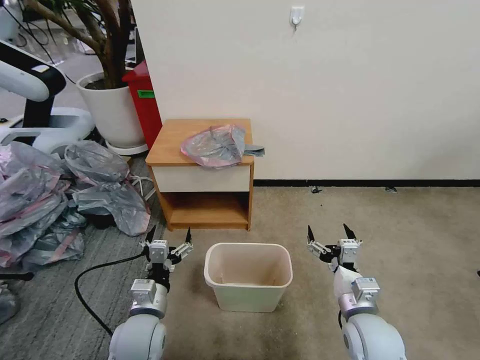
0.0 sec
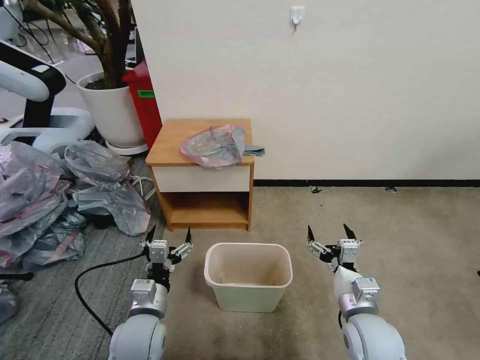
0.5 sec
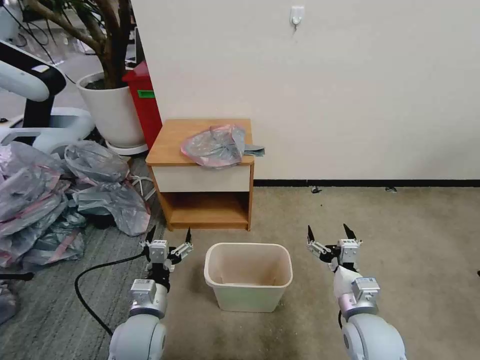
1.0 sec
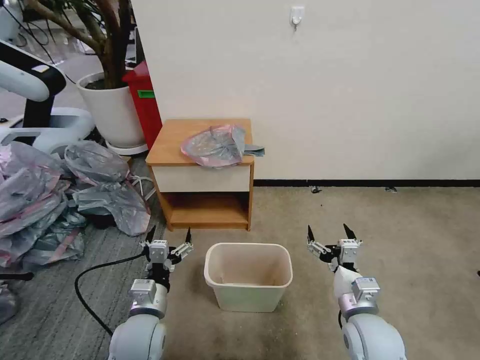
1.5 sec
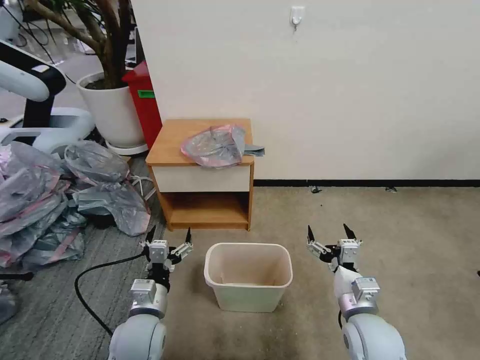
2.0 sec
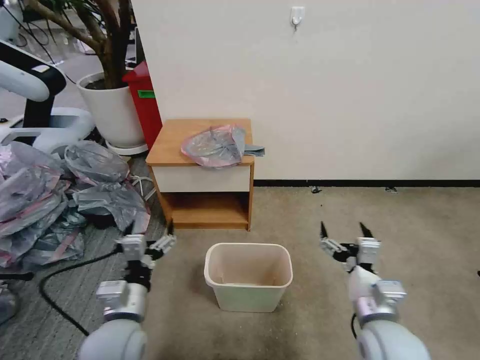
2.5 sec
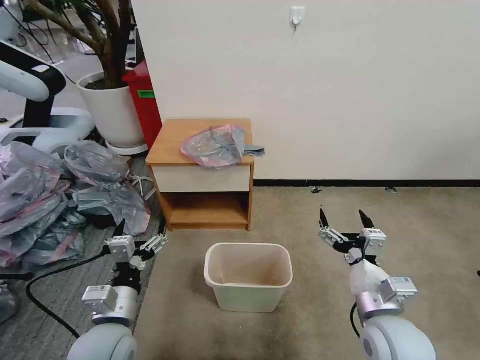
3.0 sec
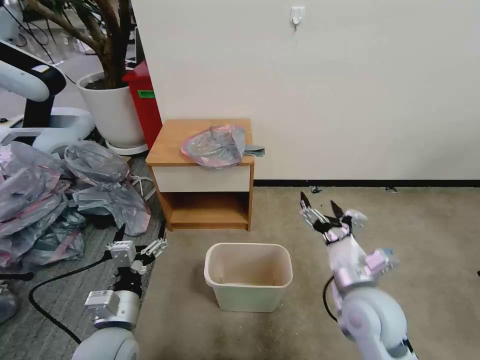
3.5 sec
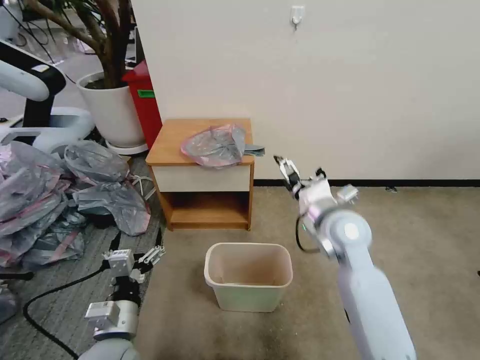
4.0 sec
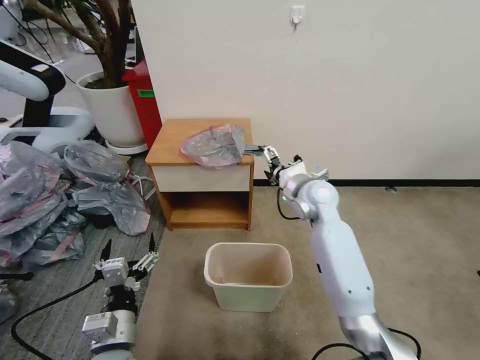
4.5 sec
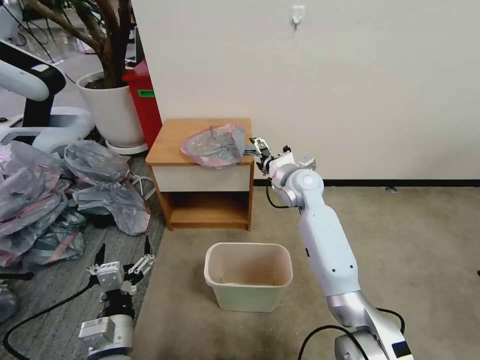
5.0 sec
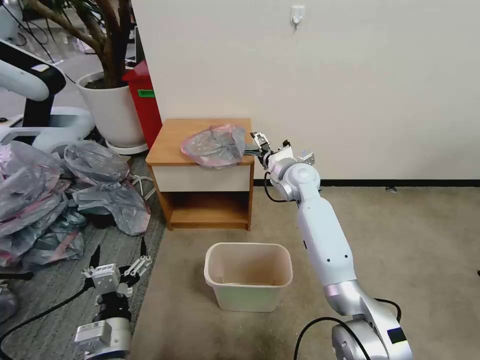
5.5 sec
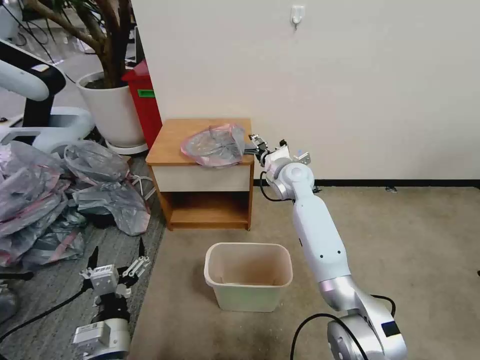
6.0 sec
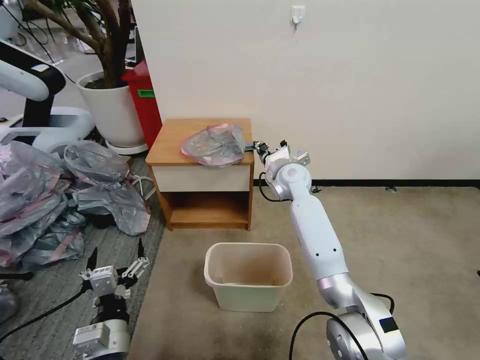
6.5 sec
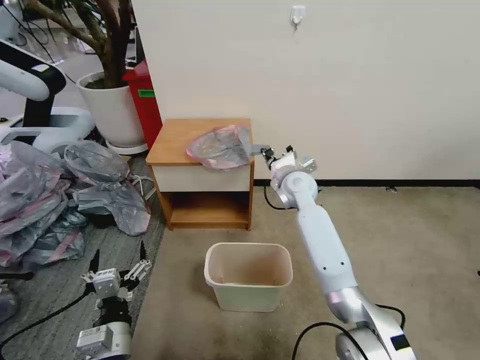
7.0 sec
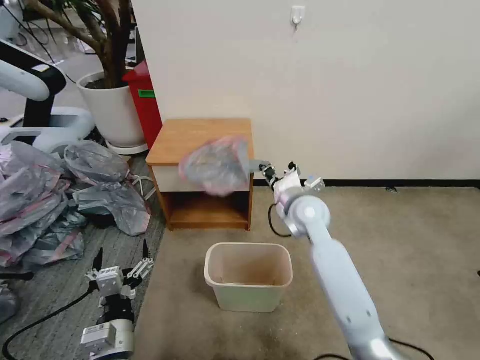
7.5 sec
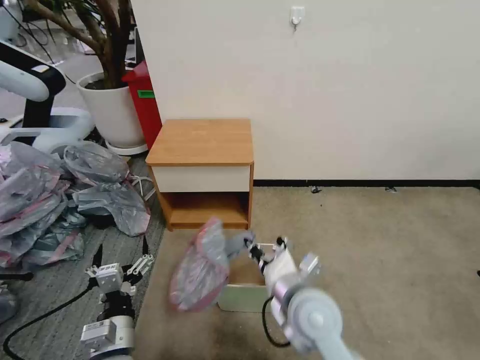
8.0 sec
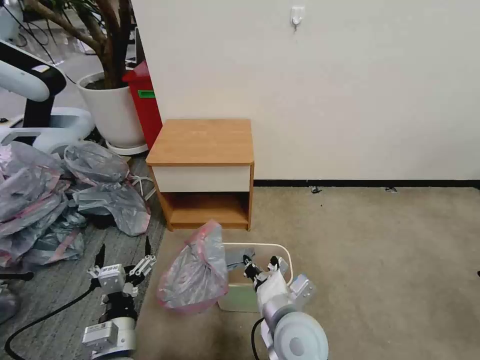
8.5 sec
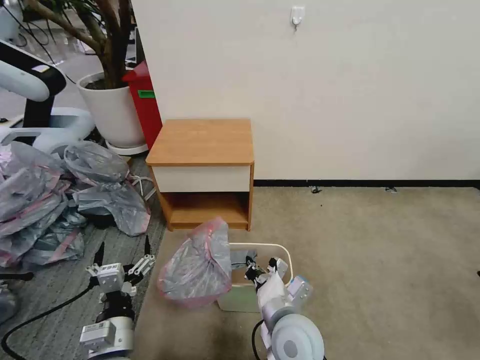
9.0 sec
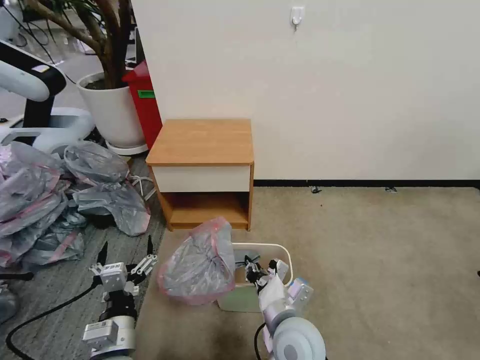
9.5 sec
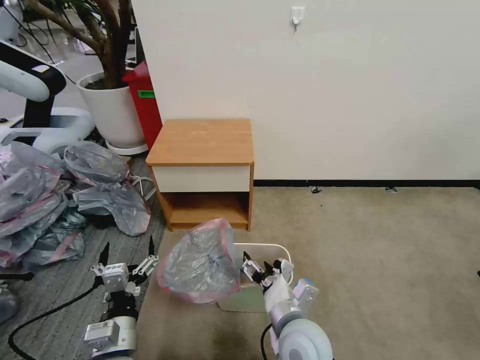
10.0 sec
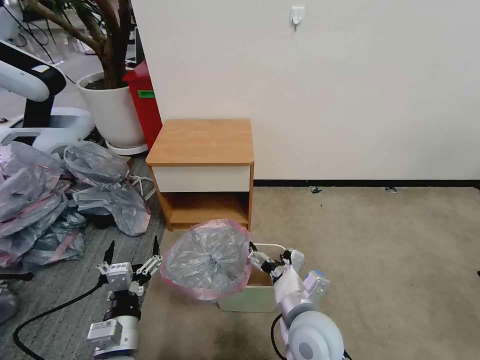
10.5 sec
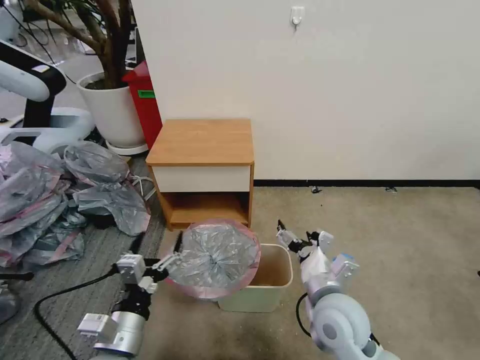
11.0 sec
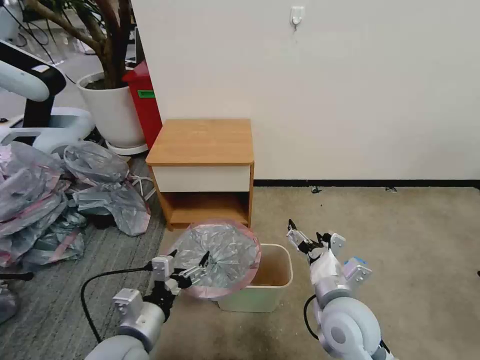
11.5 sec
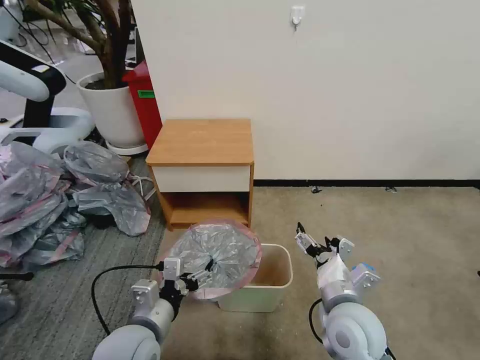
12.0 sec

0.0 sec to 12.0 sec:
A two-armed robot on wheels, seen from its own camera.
Task of the whole recording: Pick up the garbage bag from the table and place it over the trash can.
2.0 sec to 4.0 sec: The left gripper moves approximately 5 cm, while the right gripper travels forward and upward by roughly 20 cm.
4.0 sec to 6.0 sec: The right gripper travels forward by about 15 cm.
6.0 sec to 8.0 sec: The right gripper heads backward, covering some 30 cm, and closes up.
8.0 sec to 10.0 sec: The right gripper changes place by some 5 cm, and opens up.
10.0 sec to 12.0 sec: The right gripper moves to the right, about 10 cm, while the left gripper shifts by about 5 cm.

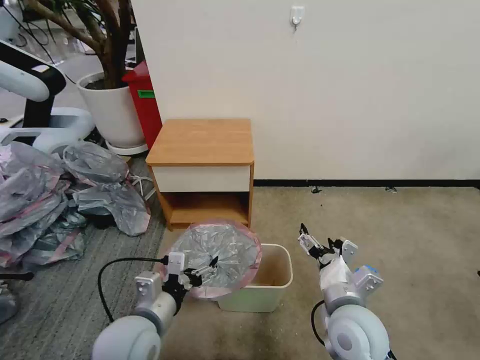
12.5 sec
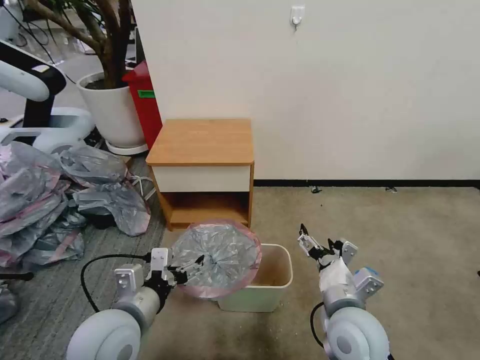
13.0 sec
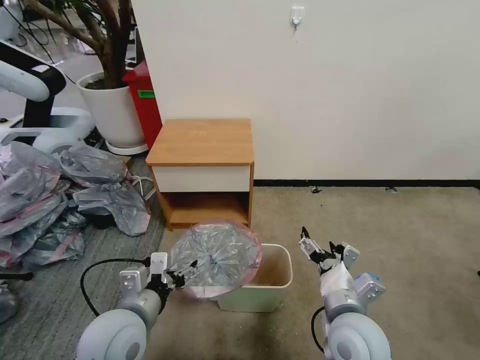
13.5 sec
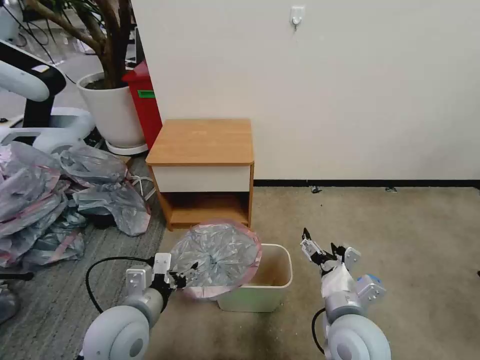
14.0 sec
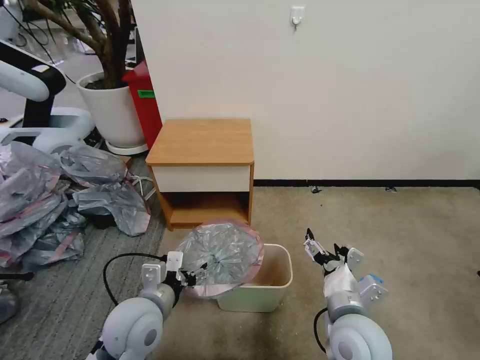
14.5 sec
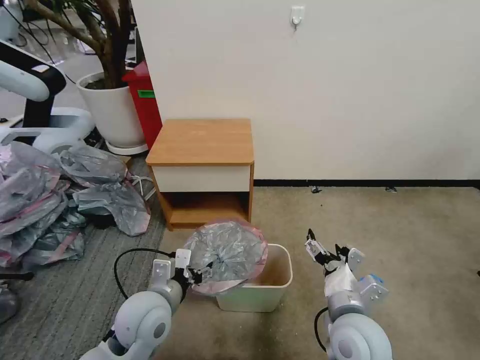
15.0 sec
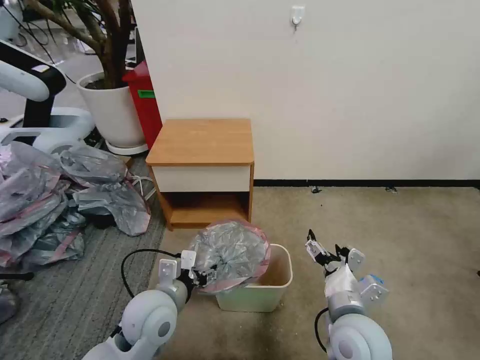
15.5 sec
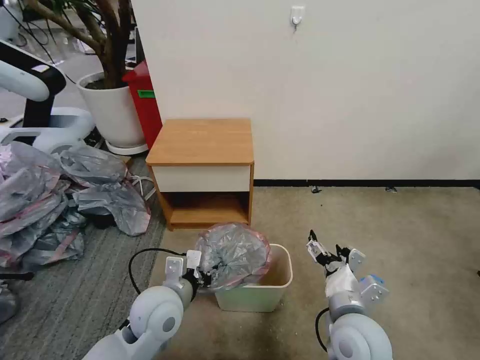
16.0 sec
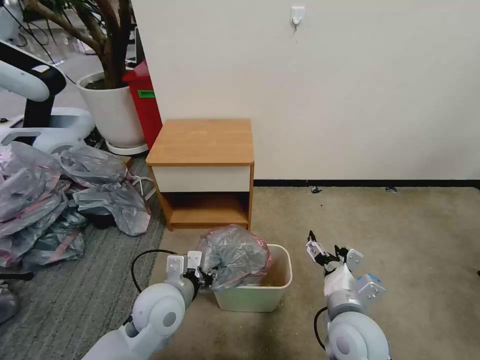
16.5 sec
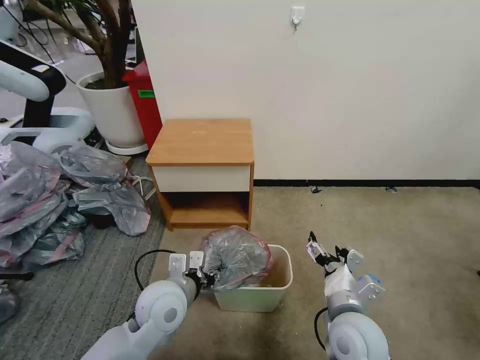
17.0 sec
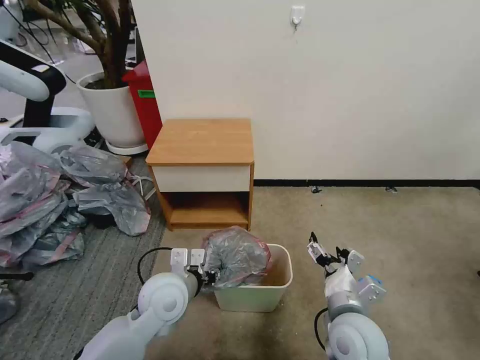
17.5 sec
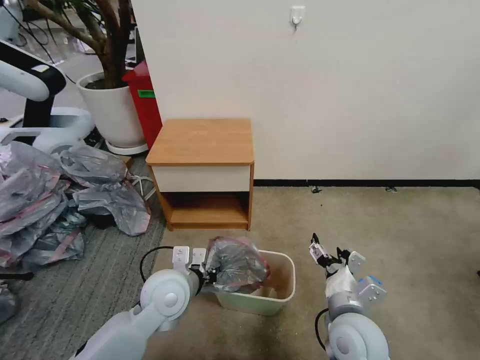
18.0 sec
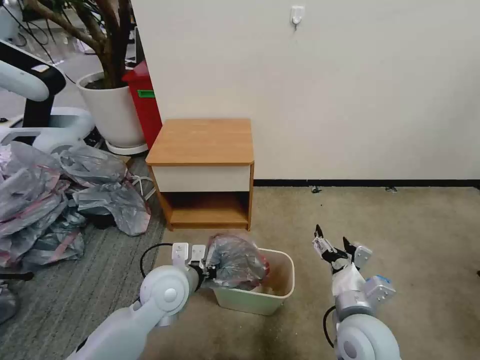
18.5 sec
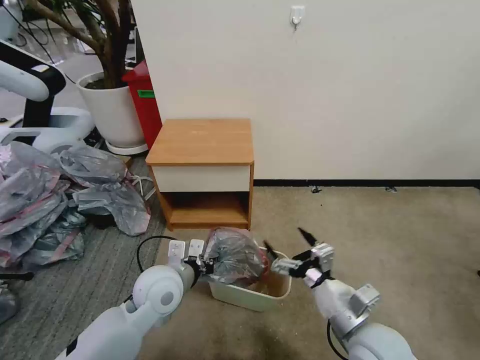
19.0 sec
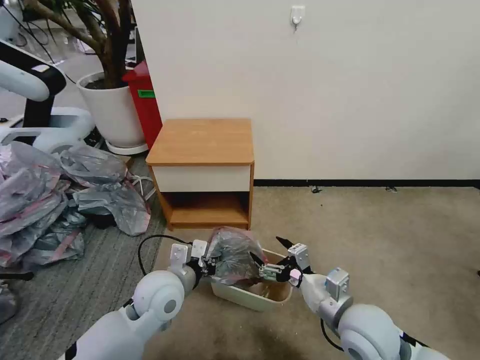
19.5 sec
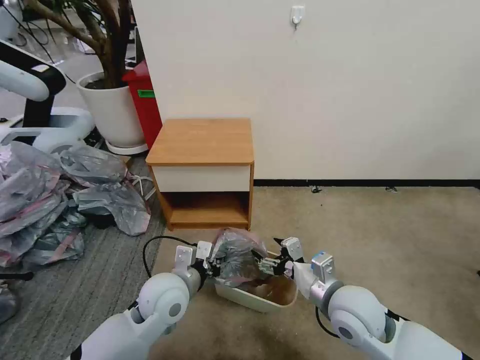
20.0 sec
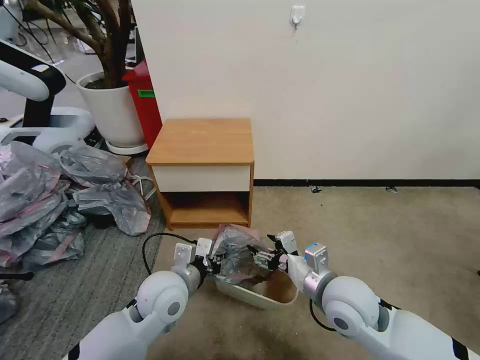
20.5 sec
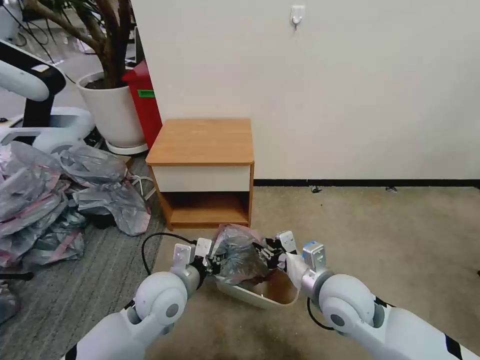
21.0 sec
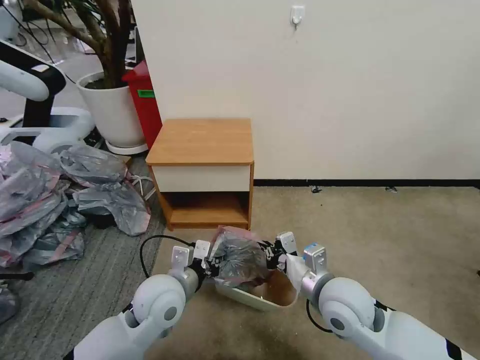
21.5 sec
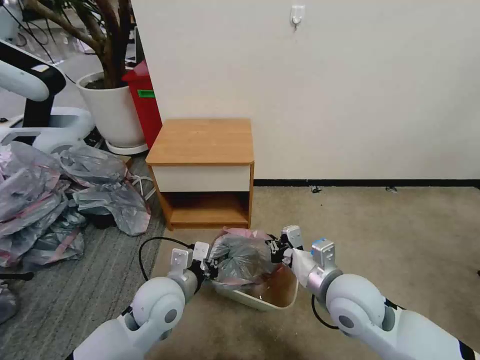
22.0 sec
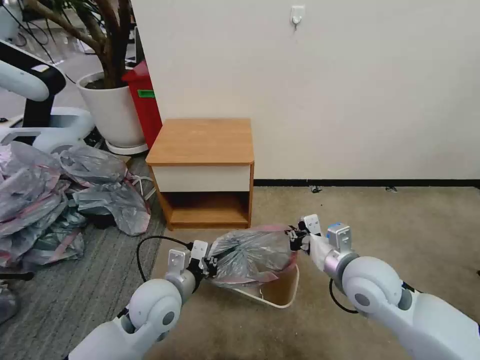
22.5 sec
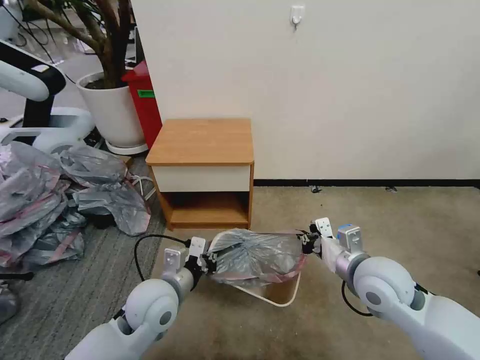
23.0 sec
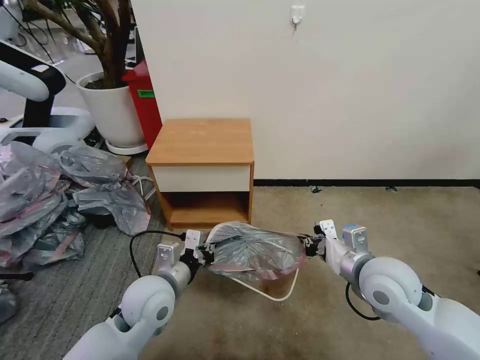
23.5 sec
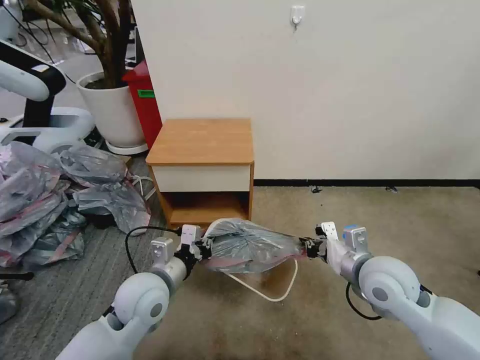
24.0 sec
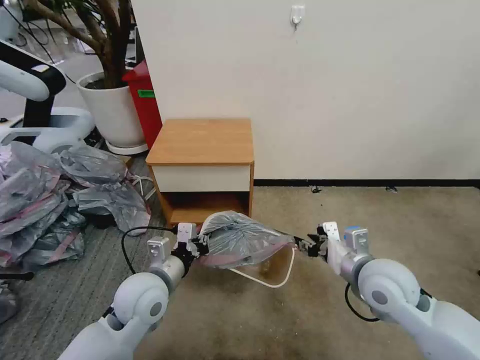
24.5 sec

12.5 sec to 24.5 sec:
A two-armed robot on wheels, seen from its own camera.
Task of the whole recording: Pick up the garbage bag from the table and place it over the trash can.
12.5 sec to 14.5 sec: There are only small adjustments of the grippers.
14.5 sec to 16.5 sec: There are only small adjustments of the grippers.
16.5 sec to 18.5 sec: The left gripper closes.
18.5 sec to 20.5 sec: The right gripper shifts roughly 5 cm forward.
20.5 sec to 22.5 sec: The right gripper shifts by approximately 5 cm, and closes.
22.5 sec to 24.5 sec: The right gripper opens.

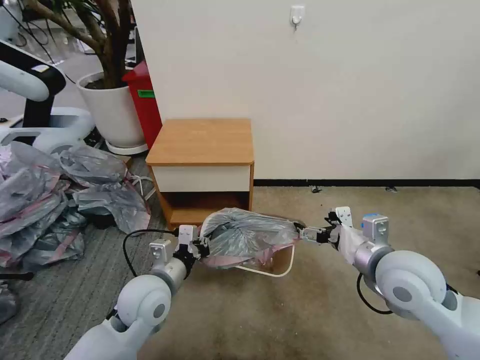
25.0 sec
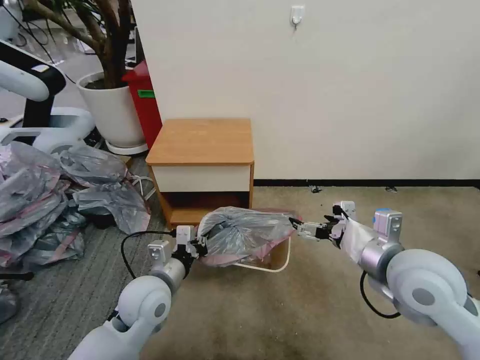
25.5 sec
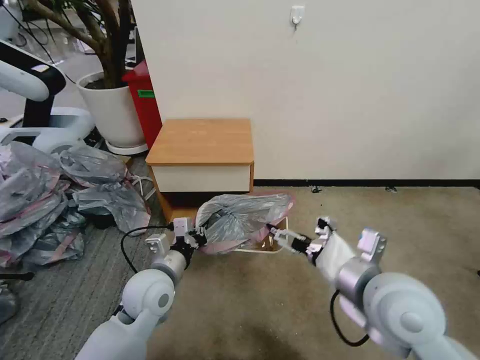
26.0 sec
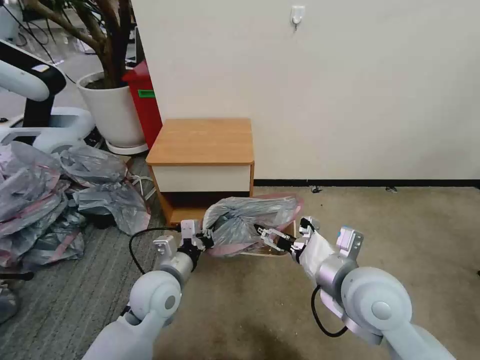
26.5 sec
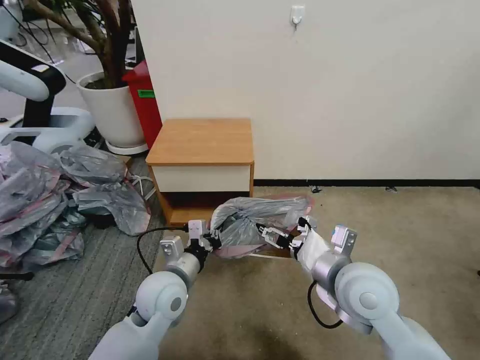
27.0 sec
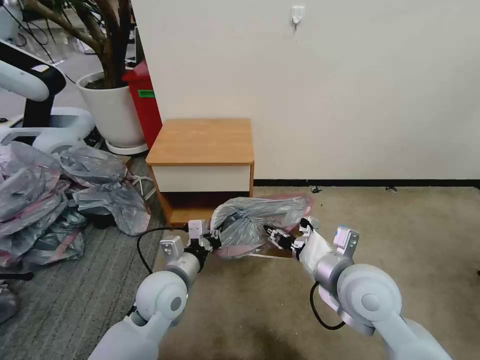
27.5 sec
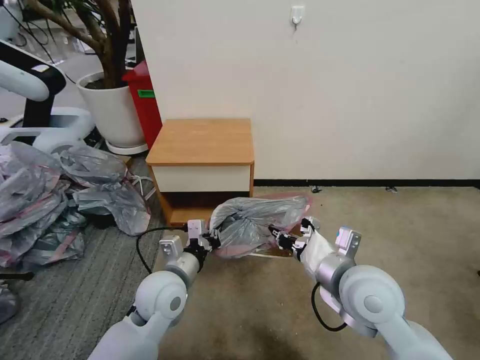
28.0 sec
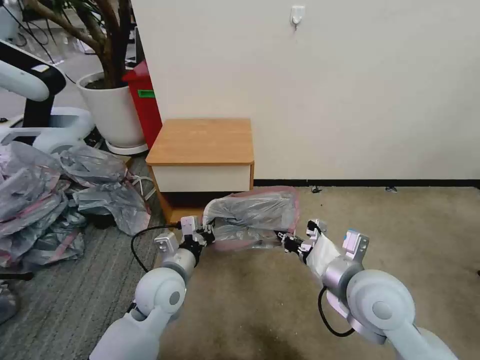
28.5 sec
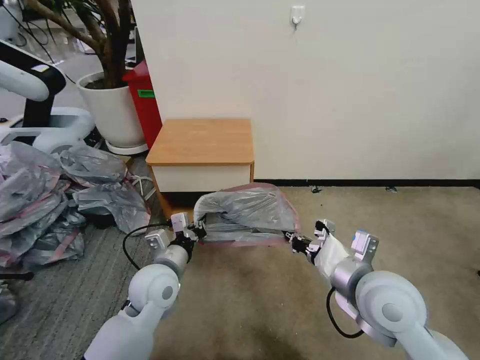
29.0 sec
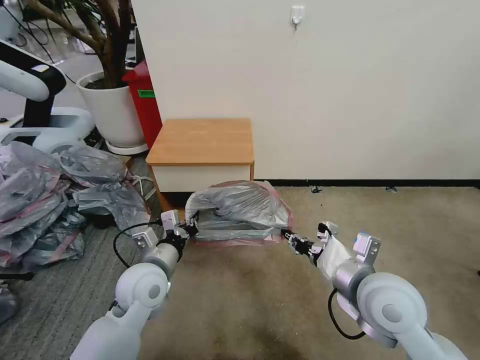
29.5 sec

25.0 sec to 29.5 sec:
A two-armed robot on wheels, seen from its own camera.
Task of the whole recording: Pick up the garbage bag from the table and place it over the trash can.
25.0 sec to 27.0 sec: The right gripper goes approximately 10 cm to the left.
27.0 sec to 29.5 sec: The right gripper closes up.
